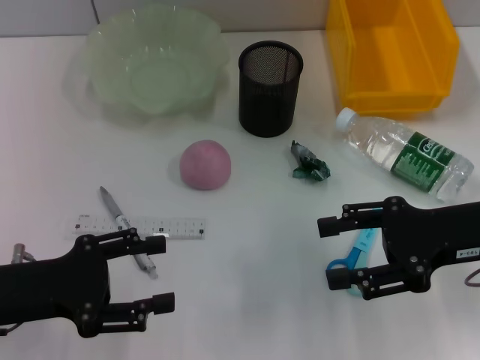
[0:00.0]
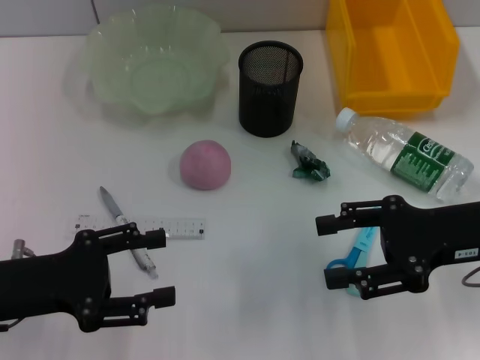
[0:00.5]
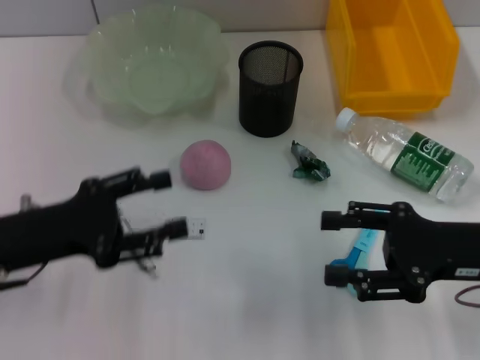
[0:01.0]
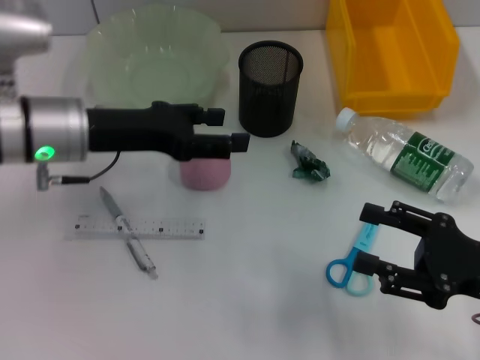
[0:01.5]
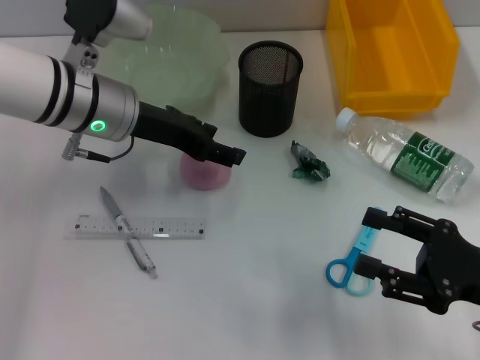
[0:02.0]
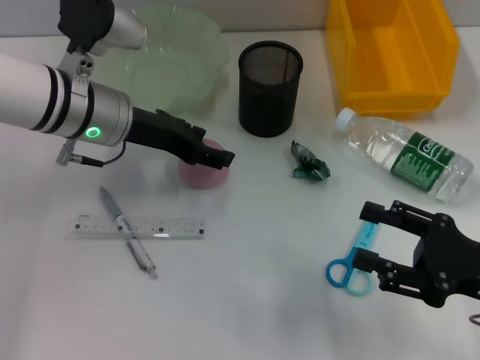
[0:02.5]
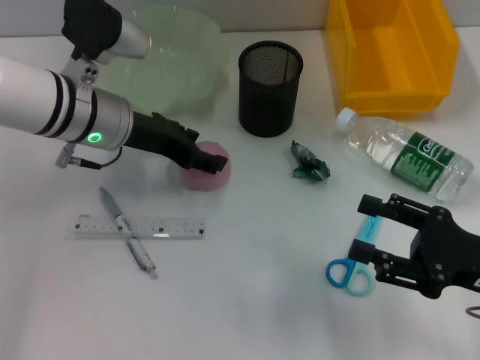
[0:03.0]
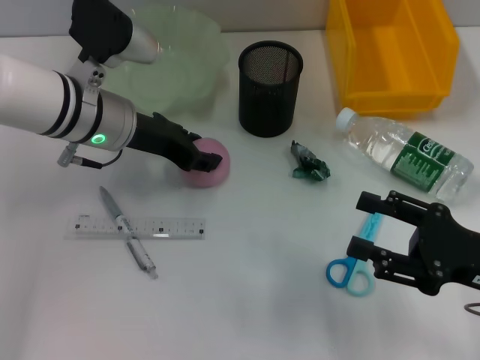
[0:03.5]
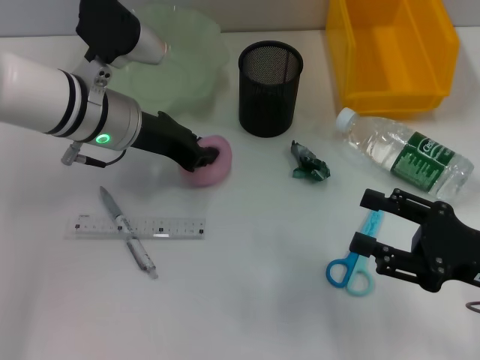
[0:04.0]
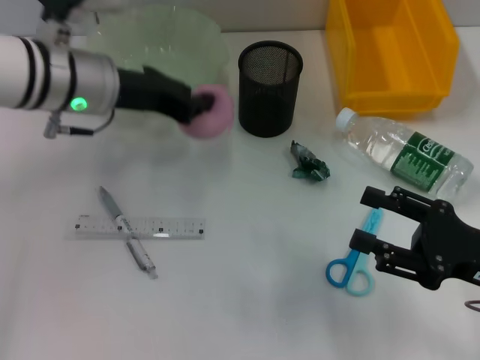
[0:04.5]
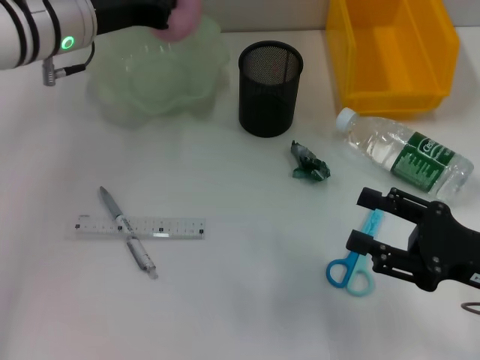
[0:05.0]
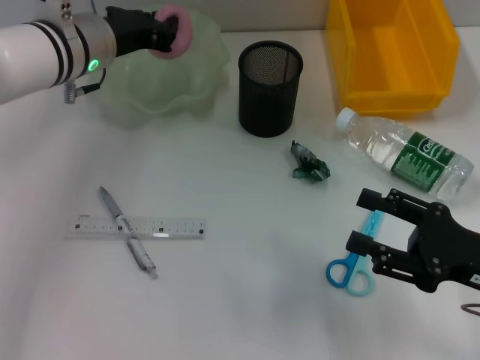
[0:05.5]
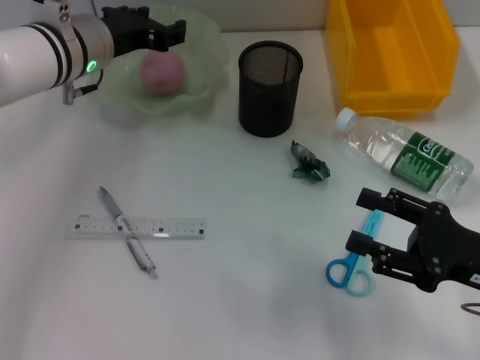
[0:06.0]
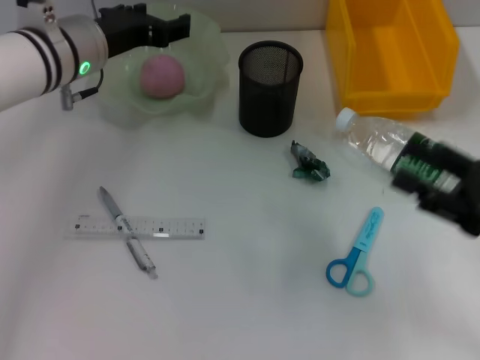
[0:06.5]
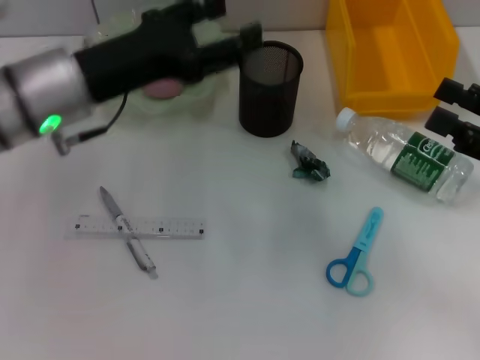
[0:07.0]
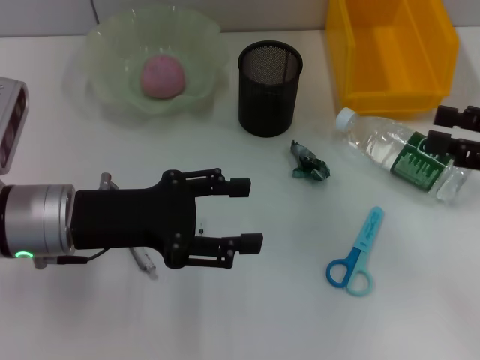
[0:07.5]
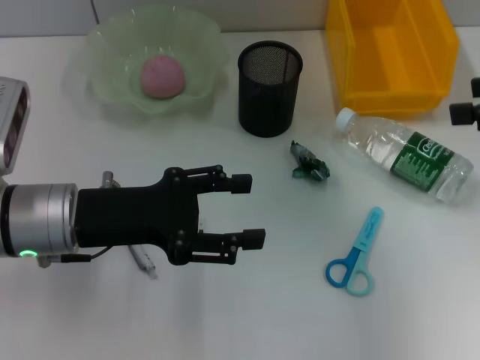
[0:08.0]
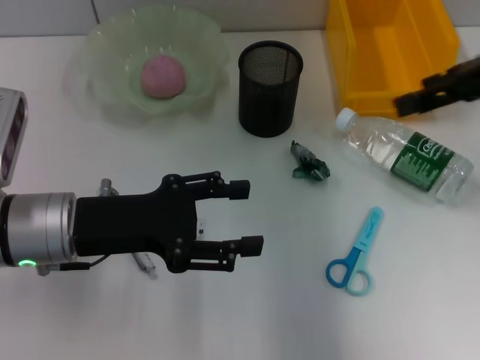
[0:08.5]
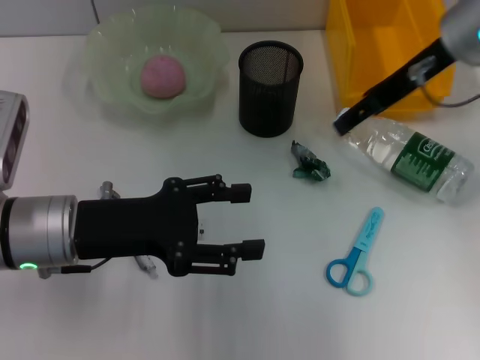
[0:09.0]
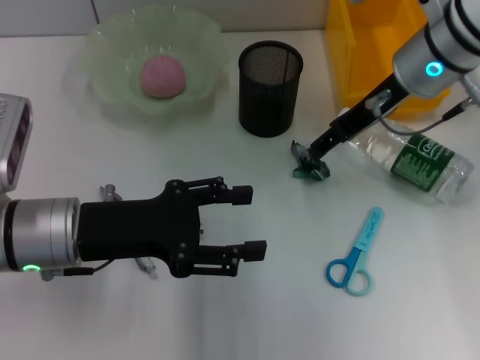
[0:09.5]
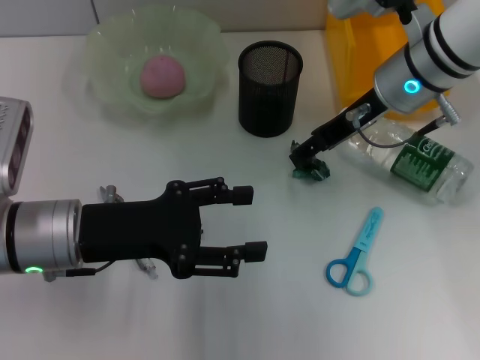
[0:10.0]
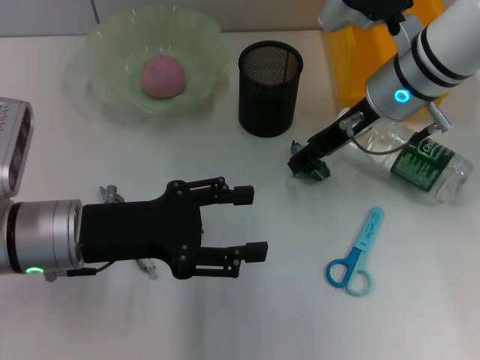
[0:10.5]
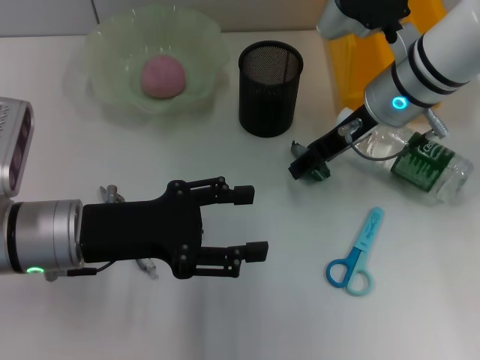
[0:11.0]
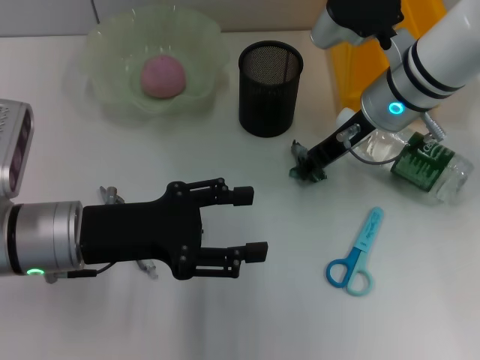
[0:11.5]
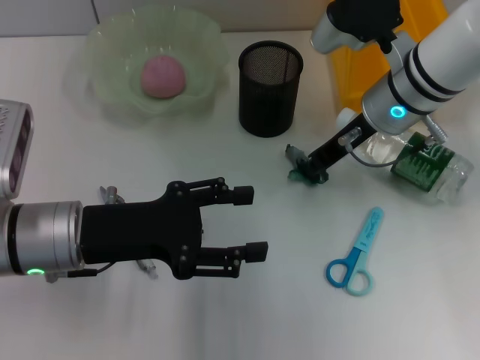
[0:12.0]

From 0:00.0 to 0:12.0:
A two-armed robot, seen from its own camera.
Step, from 0:00.0 to 0:03.5: Grab the peach with the left hand.
Step, from 0:04.0 to 0:05.5: Place the peach into the fruit bowl with the left hand.
Step, from 0:06.0 to 0:11.5: Grab the plastic with the right hand.
From 0:00.0 to 0:02.0: The left gripper heads forward and to the right, covering about 20 cm; the right gripper goes about 10 cm backward and downward.
From 0:02.0 to 0:04.0: The left gripper closes.
From 0:06.0 to 0:08.0: The right gripper goes roughly 20 cm upward and forward. The left gripper travels backward by roughly 15 cm, and opens.
From 0:08.0 to 0:10.0: The right gripper is displaced to the left, forward and downward by some 25 cm.
From 0:10.0 to 0:12.0: The right gripper closes.

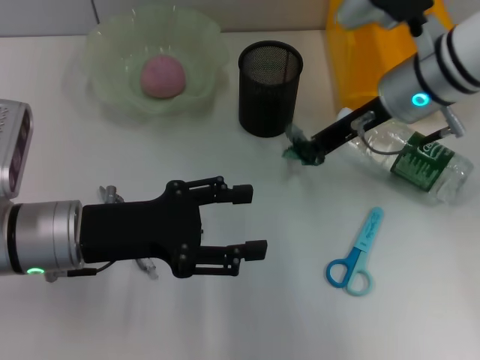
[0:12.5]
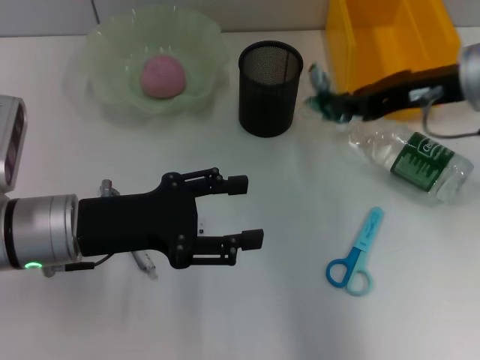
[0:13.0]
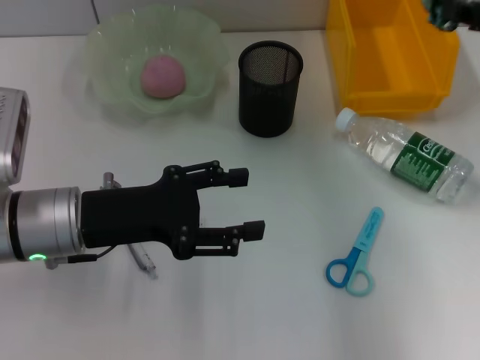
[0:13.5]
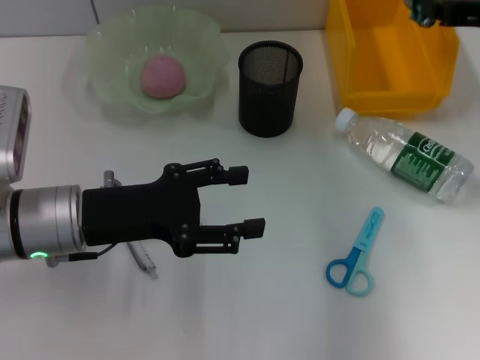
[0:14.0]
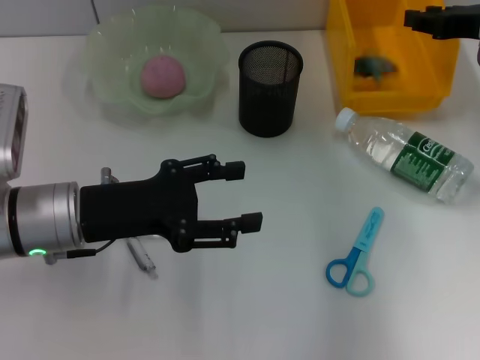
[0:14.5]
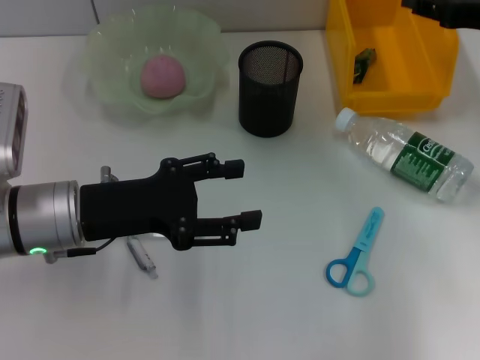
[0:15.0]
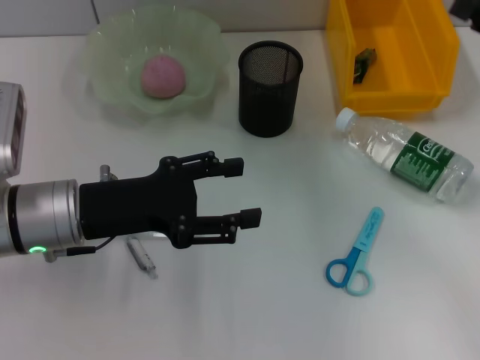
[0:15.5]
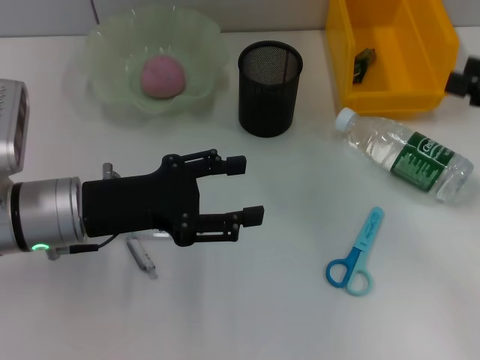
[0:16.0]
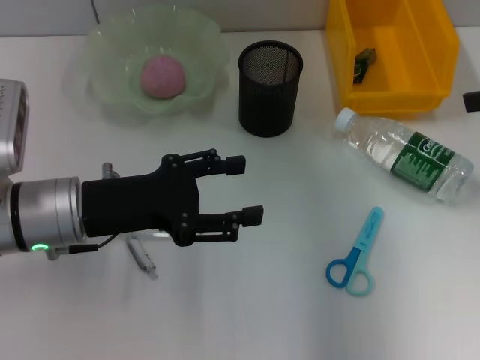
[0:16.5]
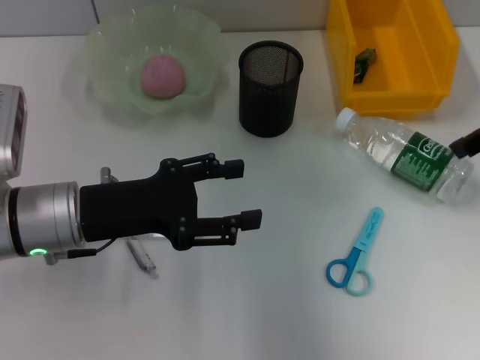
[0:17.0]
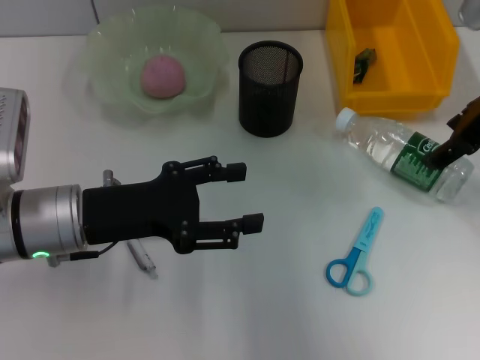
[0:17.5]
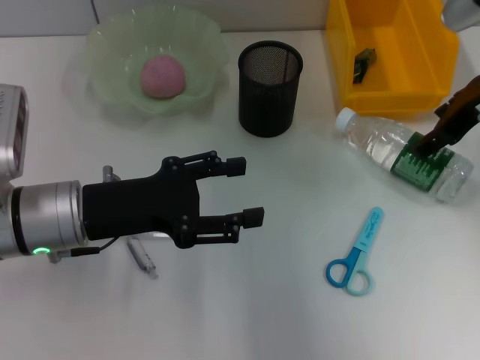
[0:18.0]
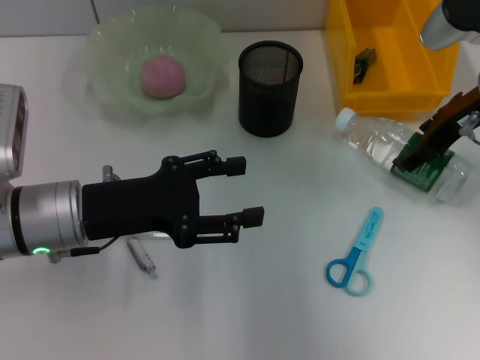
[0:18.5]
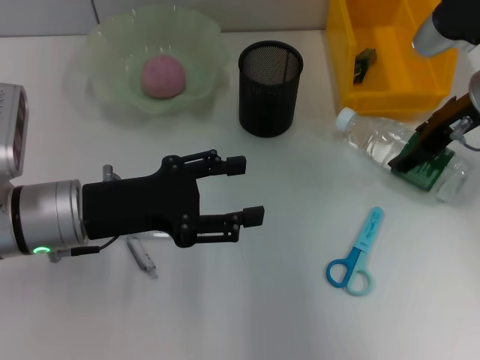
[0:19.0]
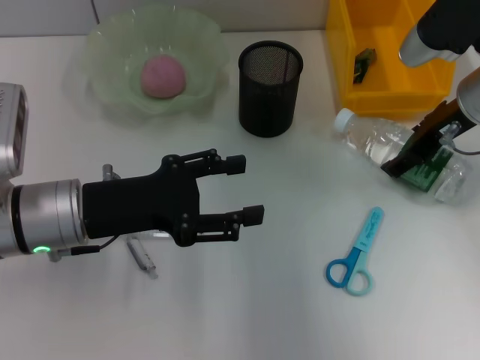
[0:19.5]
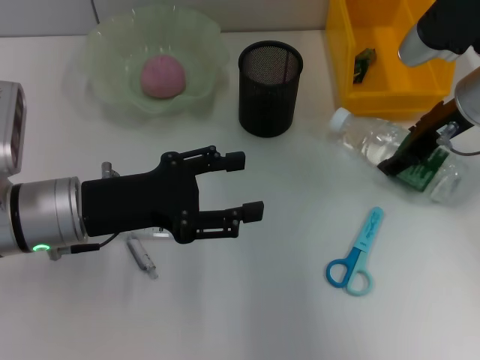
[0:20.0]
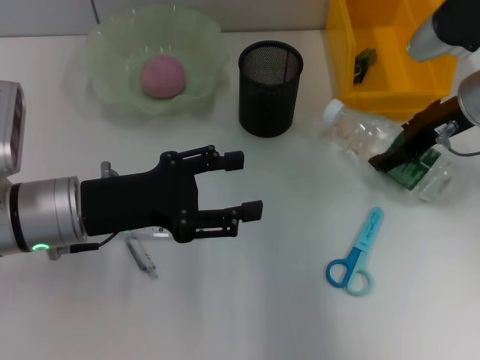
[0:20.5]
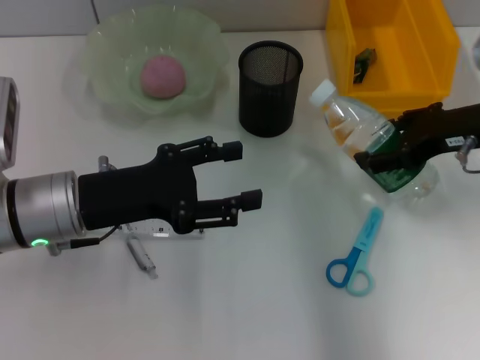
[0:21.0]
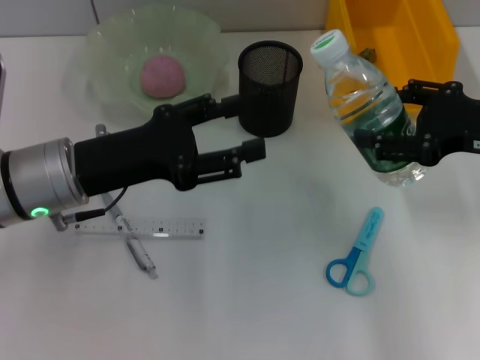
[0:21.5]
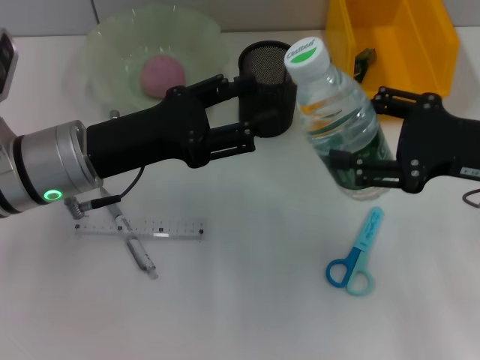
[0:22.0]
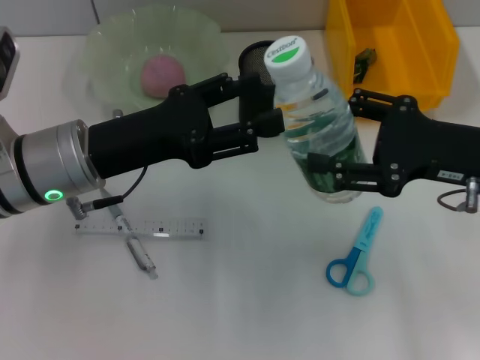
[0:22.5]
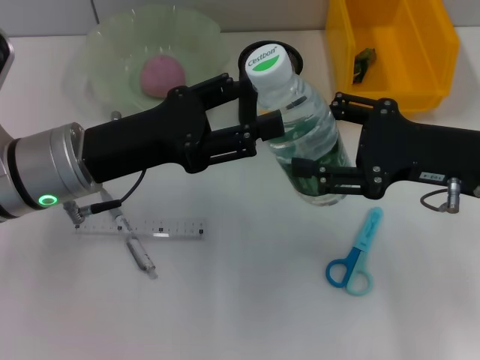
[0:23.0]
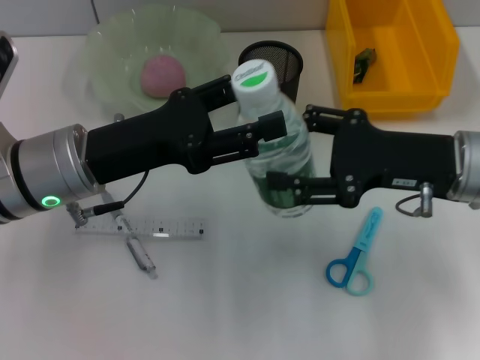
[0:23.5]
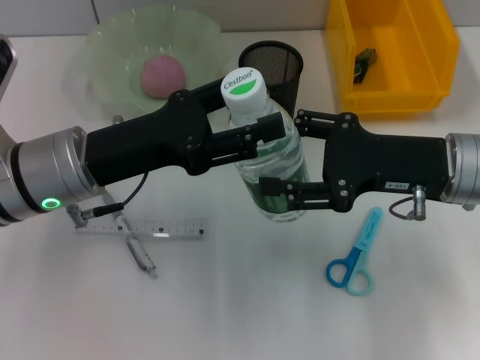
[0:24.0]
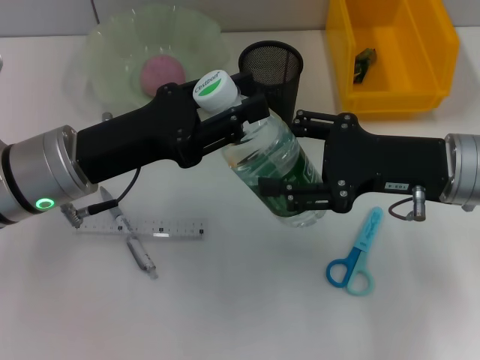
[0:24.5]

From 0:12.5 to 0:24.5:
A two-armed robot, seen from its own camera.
Step, from 0:12.5 to 0:14.5: Place the plastic into the trash can with the right hand.
Step, from 0:15.0 to 0:20.0: Grab the water bottle with the right hand.
From 0:12.5 to 0:14.5: The right gripper goes about 15 cm to the right.
From 0:14.5 to 0:16.5: The right gripper goes roughly 10 cm backward and upward, and opens its fingers.
From 0:16.5 to 0:18.5: The right gripper moves to the left, downward and forward, some 15 cm.
From 0:18.5 to 0:20.5: The grippers make only small movements.
From 0:20.5 to 0:22.5: The right gripper is displaced backward by roughly 10 cm.
From 0:22.5 to 0:24.5: The grippers stay close to where they were, moving slightly.

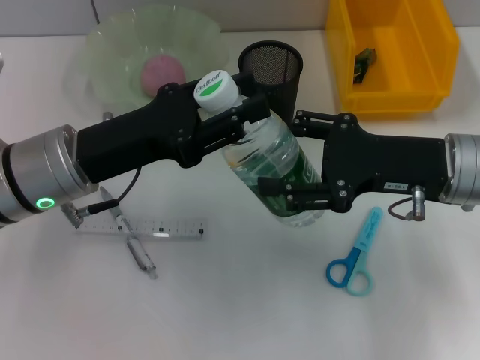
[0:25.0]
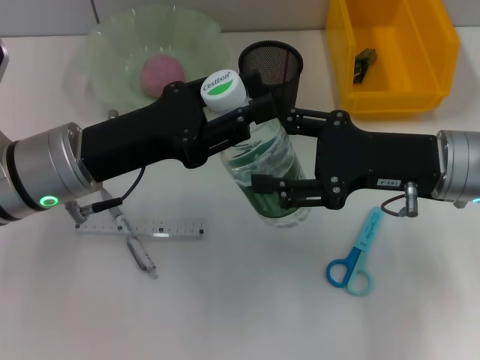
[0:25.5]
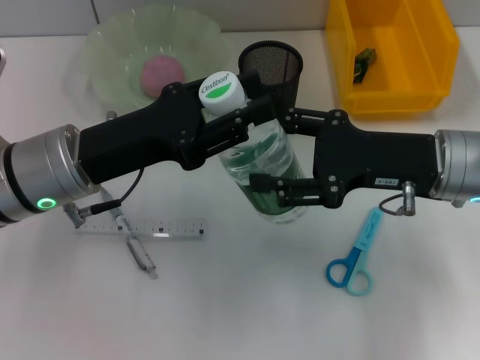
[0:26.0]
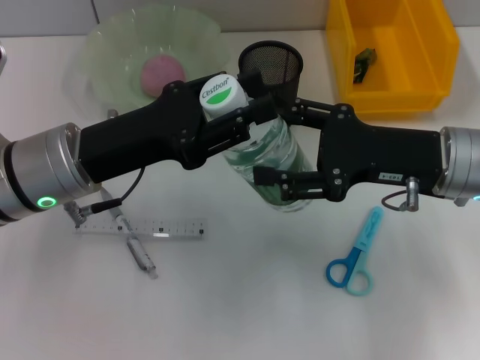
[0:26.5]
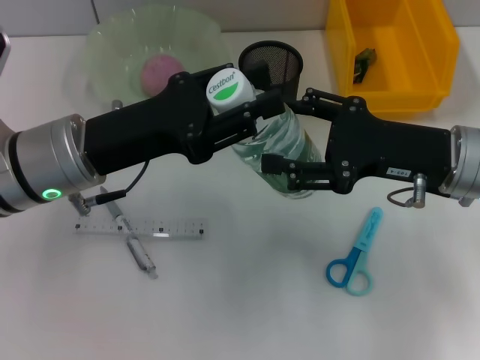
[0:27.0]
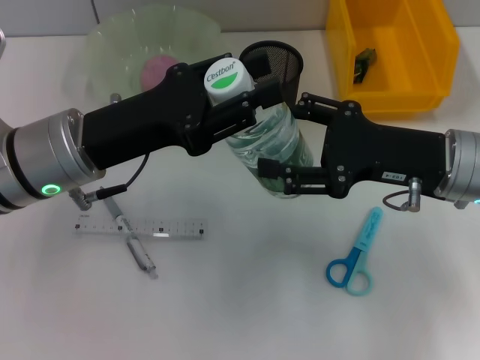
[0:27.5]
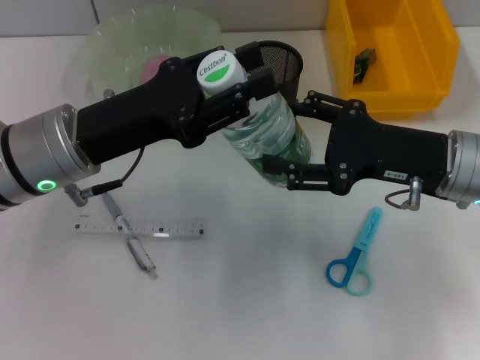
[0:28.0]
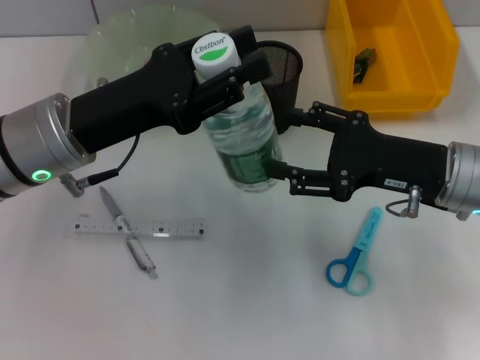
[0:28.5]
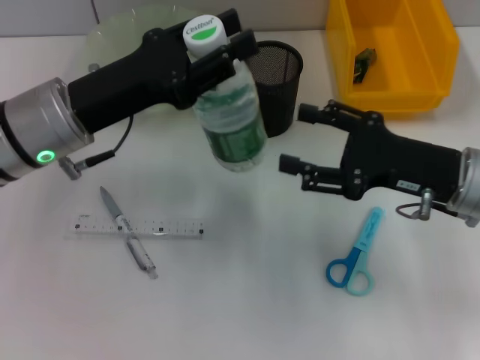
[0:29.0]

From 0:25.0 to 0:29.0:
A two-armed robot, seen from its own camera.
Step, from 0:25.0 to 0:28.5: Pass the water bottle from the right hand to the left hand.
From 0:25.0 to 0:27.0: The grippers make only small movements.
